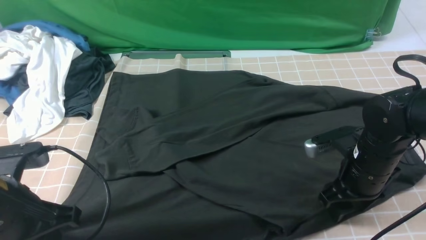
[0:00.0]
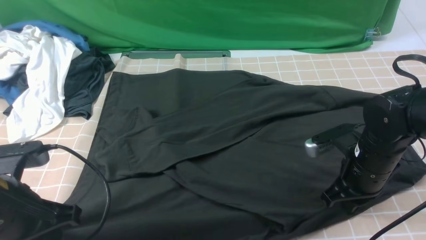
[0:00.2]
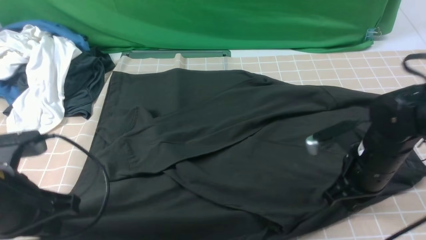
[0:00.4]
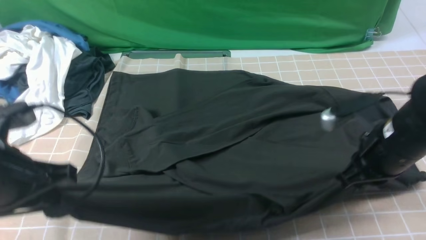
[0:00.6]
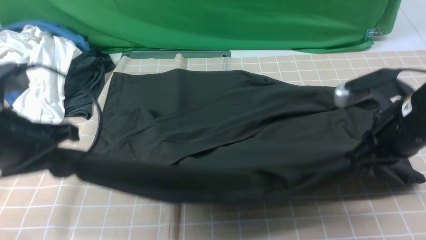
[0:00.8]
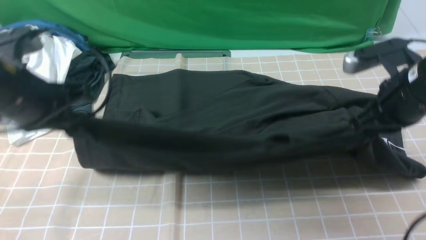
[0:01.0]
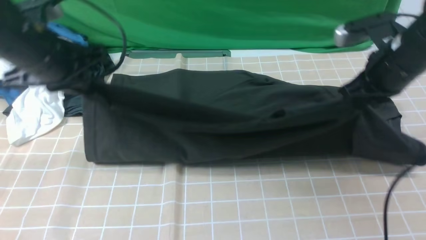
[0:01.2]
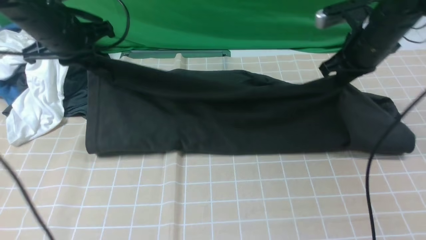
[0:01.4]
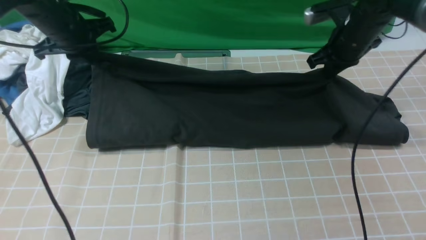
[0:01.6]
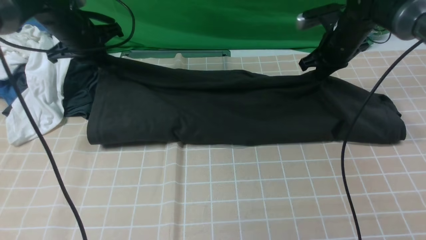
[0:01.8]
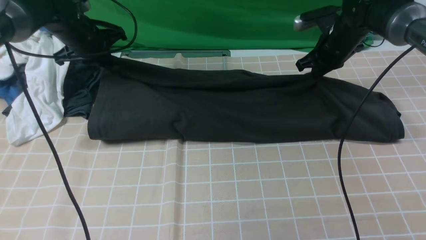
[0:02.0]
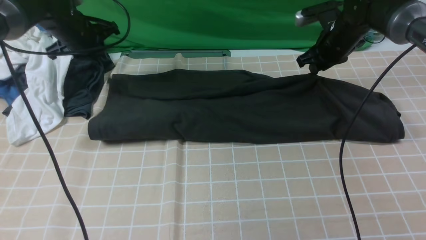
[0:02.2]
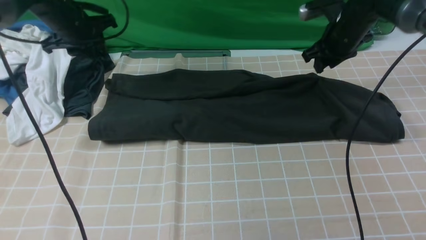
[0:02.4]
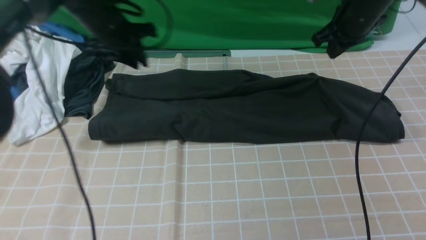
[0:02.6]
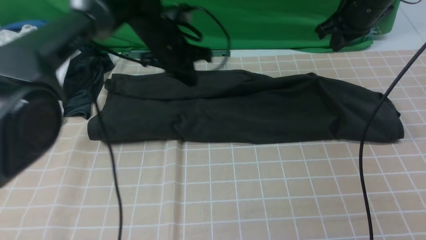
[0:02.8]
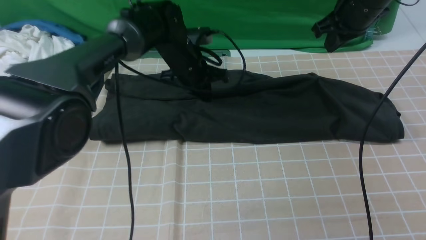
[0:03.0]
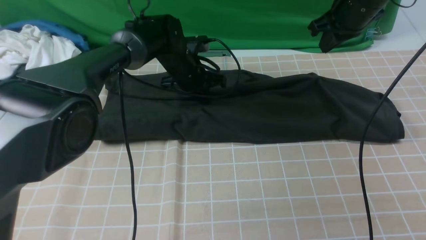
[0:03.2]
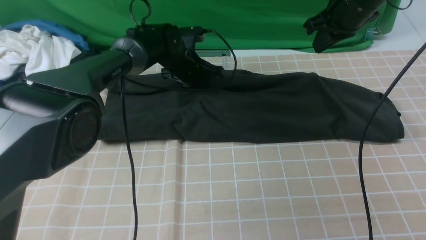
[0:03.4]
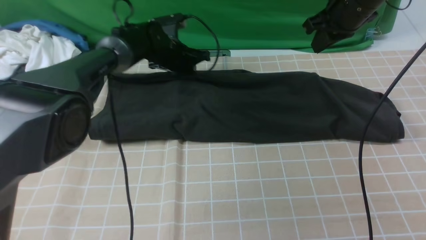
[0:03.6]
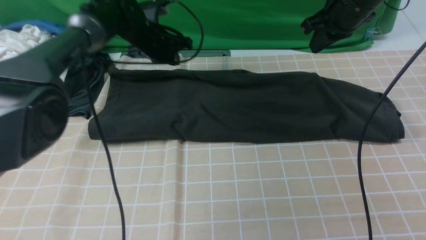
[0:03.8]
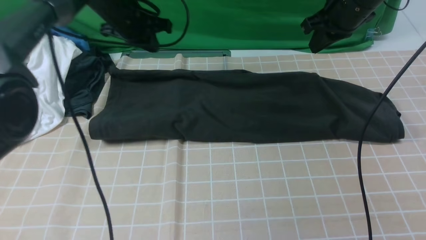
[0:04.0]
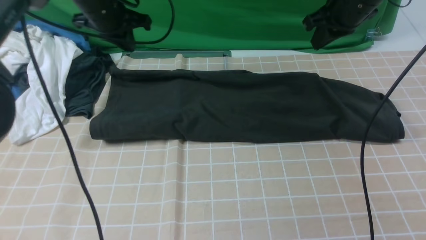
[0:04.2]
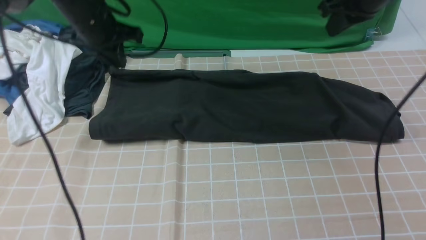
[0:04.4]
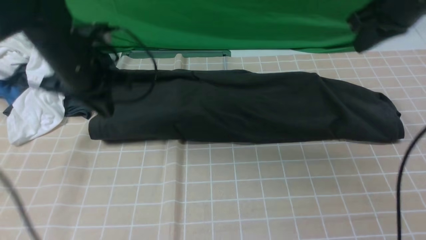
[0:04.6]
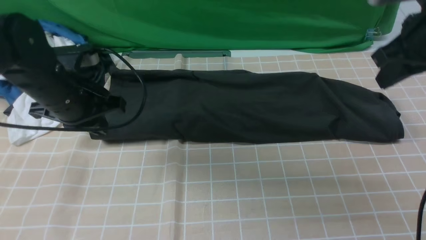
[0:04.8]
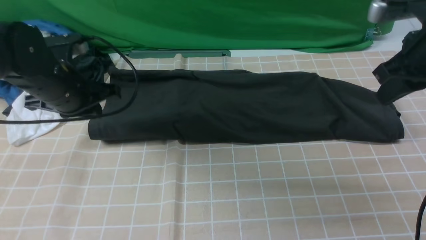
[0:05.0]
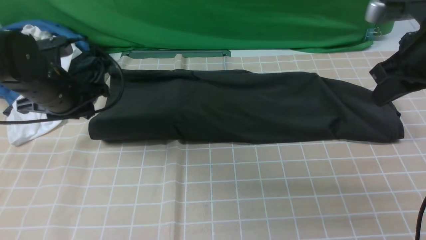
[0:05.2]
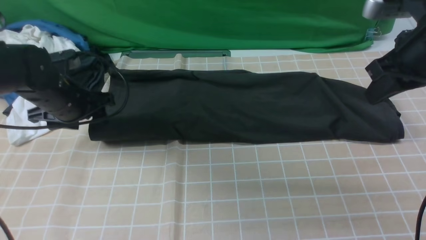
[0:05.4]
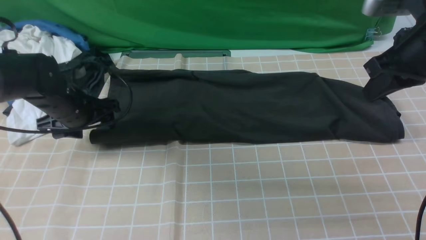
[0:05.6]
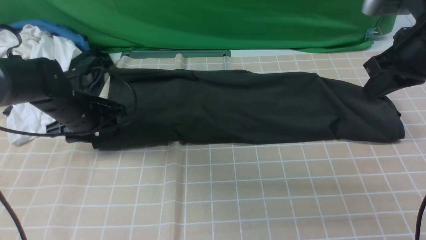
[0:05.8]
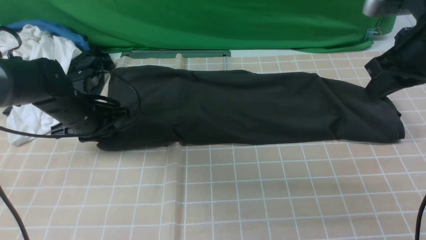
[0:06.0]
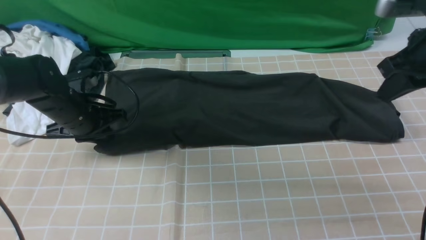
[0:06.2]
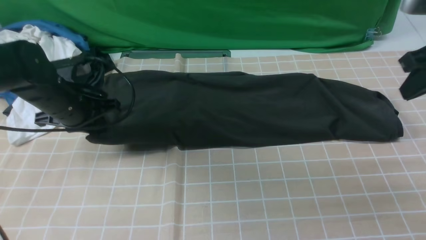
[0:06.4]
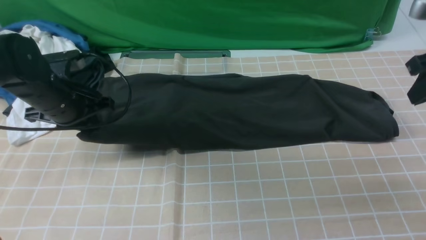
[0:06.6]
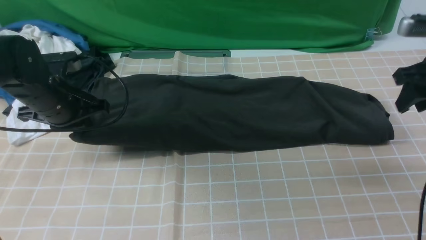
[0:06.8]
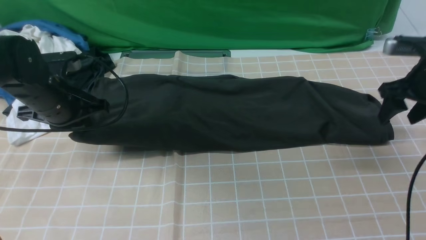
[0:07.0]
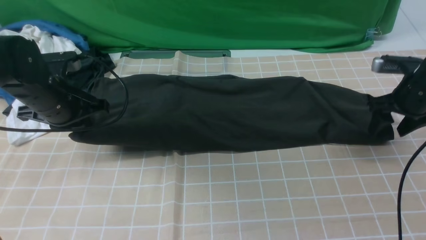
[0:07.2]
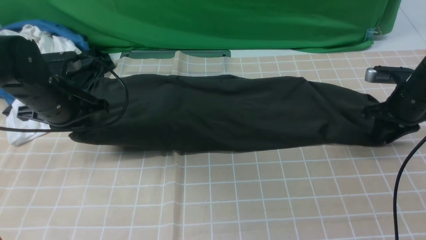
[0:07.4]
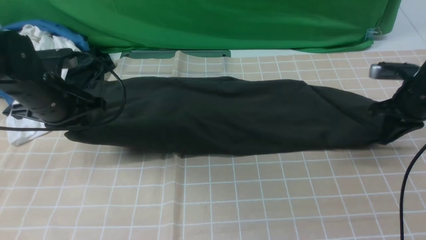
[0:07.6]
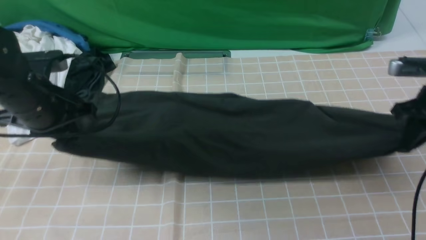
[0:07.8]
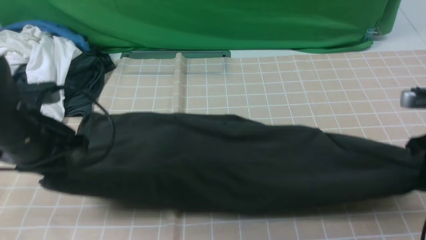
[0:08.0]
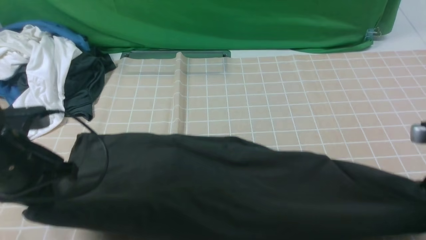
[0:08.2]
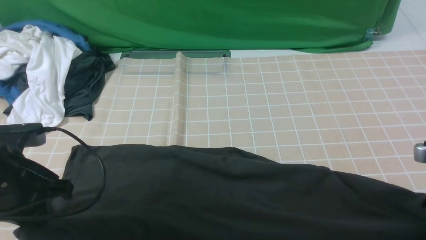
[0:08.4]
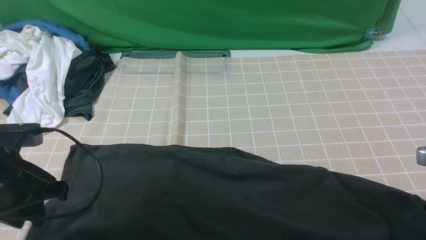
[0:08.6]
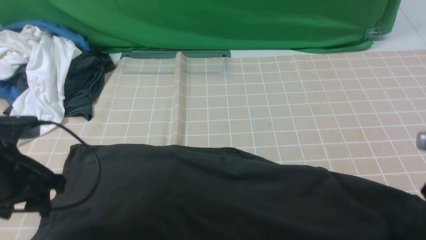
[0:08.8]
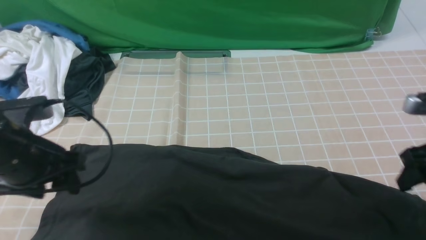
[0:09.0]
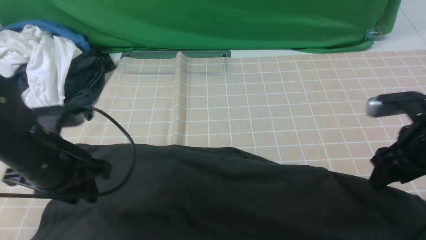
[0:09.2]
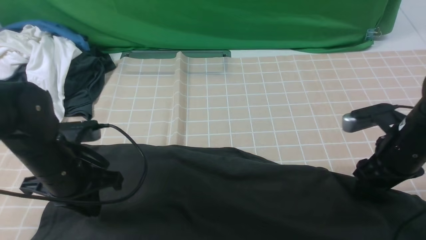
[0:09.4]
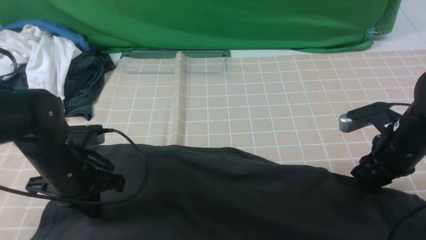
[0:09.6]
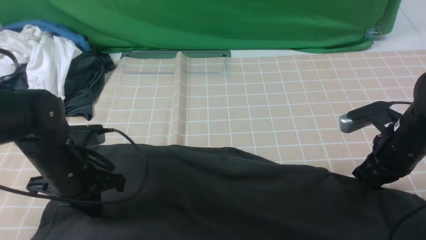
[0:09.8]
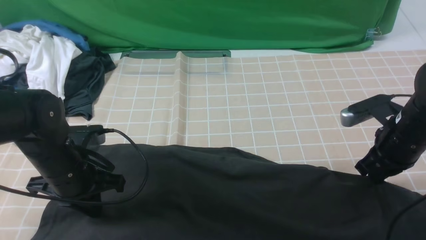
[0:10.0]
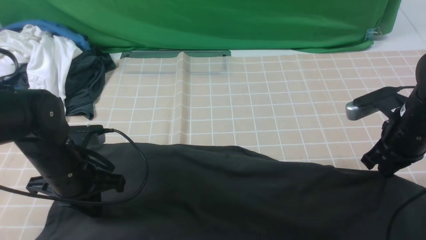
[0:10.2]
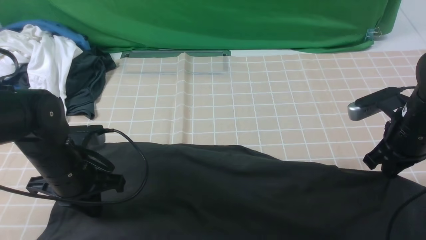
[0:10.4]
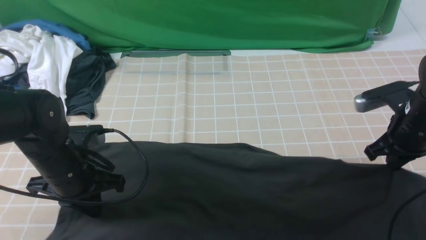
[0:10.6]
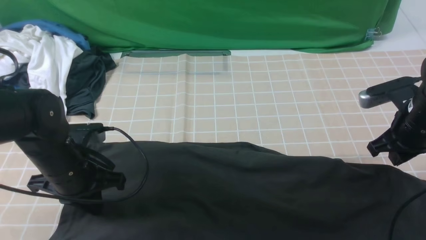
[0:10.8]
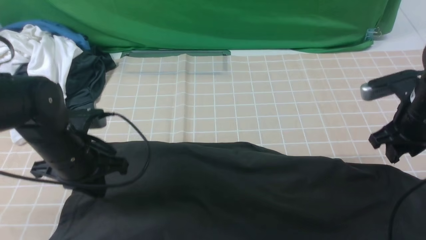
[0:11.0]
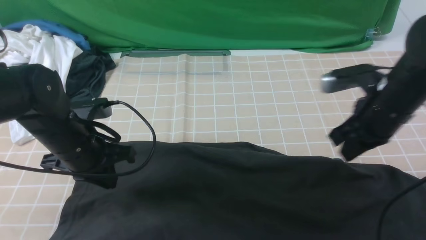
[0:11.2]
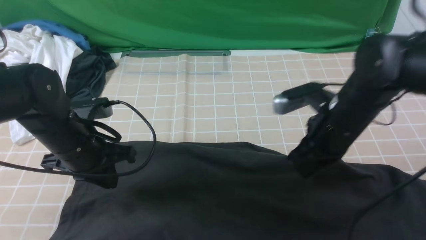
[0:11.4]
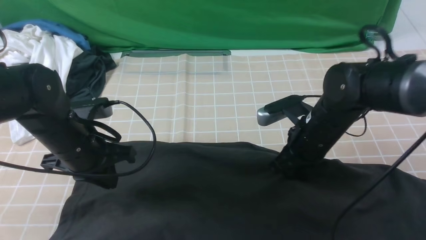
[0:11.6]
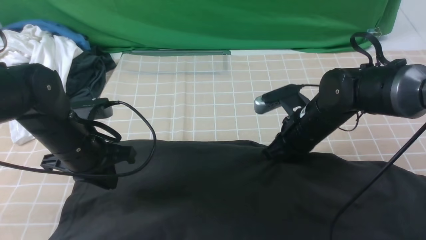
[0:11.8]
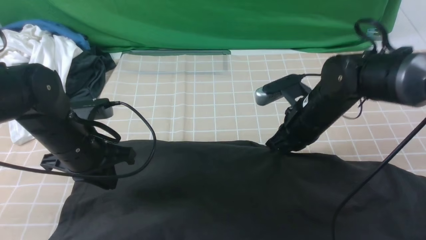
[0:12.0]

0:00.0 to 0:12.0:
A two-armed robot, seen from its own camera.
Step, 0:00.6 to 0:02.4: use both arms to drag the lower edge of the fabric forward and fold it over the upper edge.
0:00.0 to 0:01.6: The right gripper is displaced forward and upward by about 20 cm, and closes. Meanwhile the left gripper is displaced forward by roughly 30 cm.
0:01.6 to 0:03.0: The left gripper is displaced to the right and downward by about 20 cm. Meanwhile the right gripper goes some 5 cm upward, and opens, then closes once more.
0:03.0 to 0:04.4: The right gripper changes place by about 5 cm, while the left gripper goes some 15 cm to the left and upward.
0:04.4 to 0:06.0: The left gripper travels downward and backward by roughly 15 cm, and opens and closes again. Meanwhile the right gripper goes approximately 10 cm backward.
0:06.0 to 0:07.6: The right gripper travels downward, to the right and forward by some 15 cm, and opens, then closes again; the left gripper heads upward, covering some 5 cm.
0:07.6 to 0:09.0: Both grippers travel together backward, about 10 cm. The right gripper opens its fingers. Meanwhile the left gripper opens up.
0:09.0 to 0:10.4: The right gripper shifts some 5 cm forward, and closes its fingers, while the left gripper moves downward, about 5 cm, and closes.
0:10.4 to 0:12.0: The right gripper travels to the left by about 15 cm.

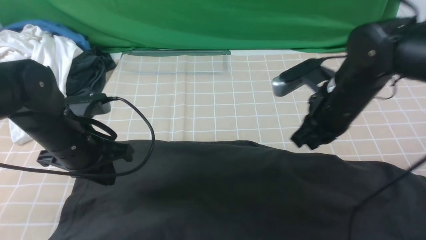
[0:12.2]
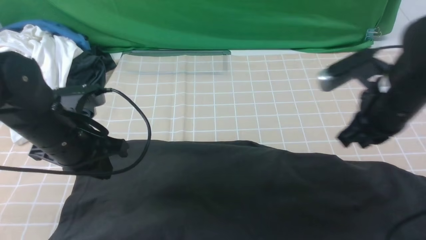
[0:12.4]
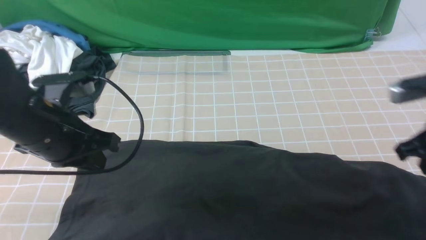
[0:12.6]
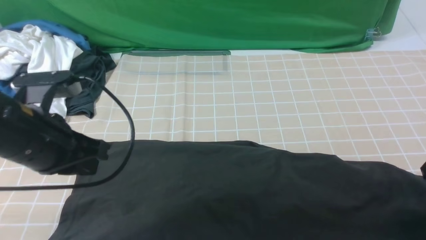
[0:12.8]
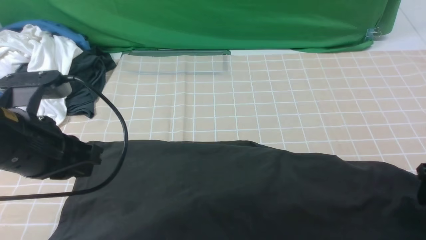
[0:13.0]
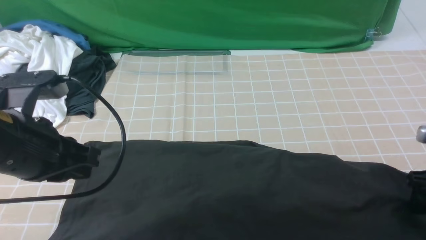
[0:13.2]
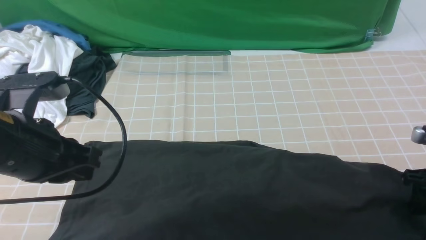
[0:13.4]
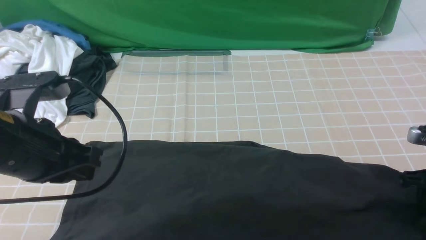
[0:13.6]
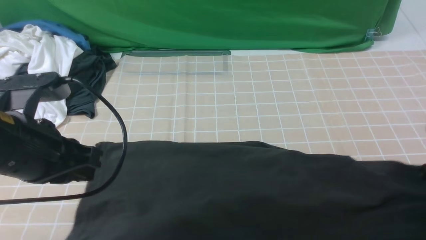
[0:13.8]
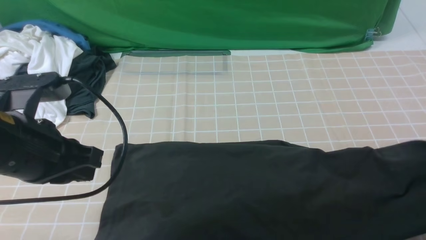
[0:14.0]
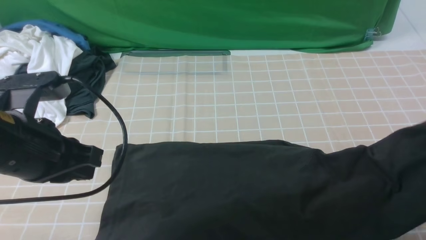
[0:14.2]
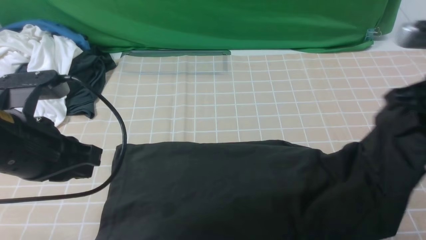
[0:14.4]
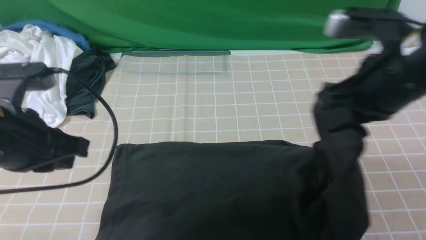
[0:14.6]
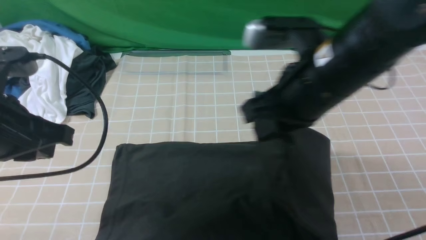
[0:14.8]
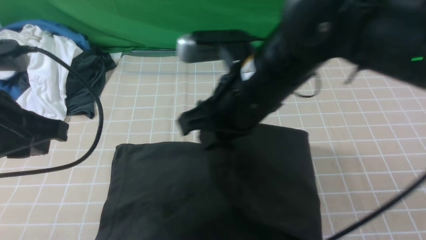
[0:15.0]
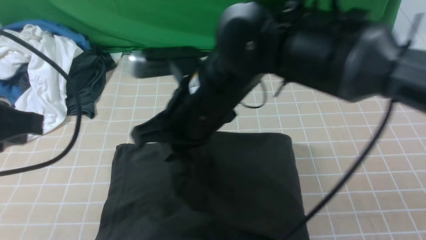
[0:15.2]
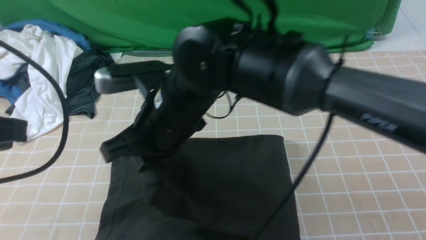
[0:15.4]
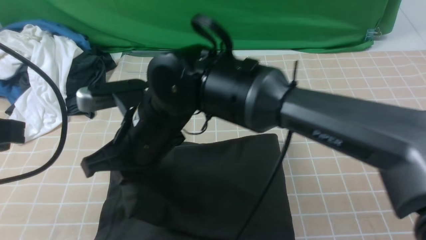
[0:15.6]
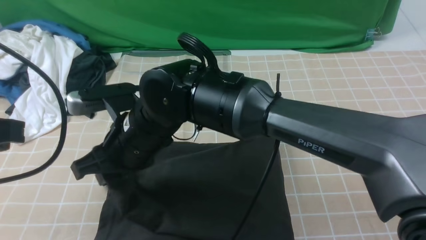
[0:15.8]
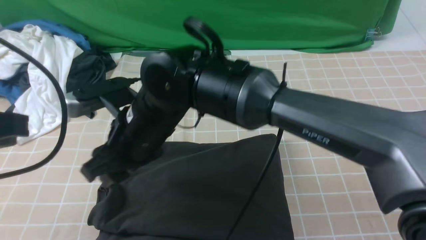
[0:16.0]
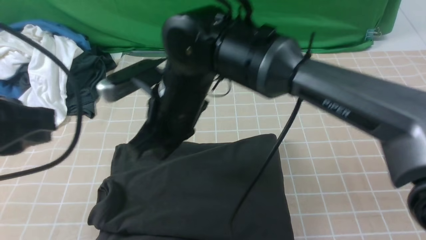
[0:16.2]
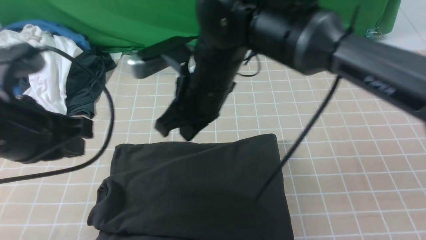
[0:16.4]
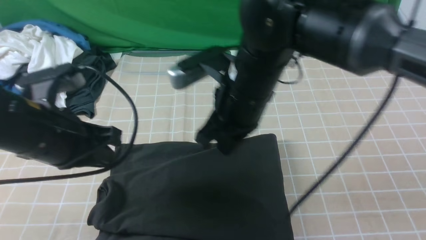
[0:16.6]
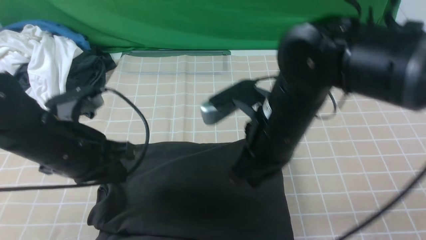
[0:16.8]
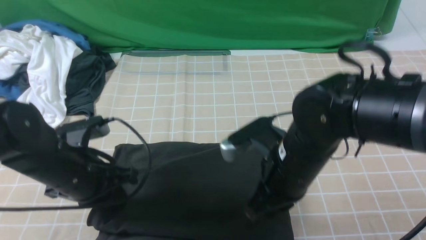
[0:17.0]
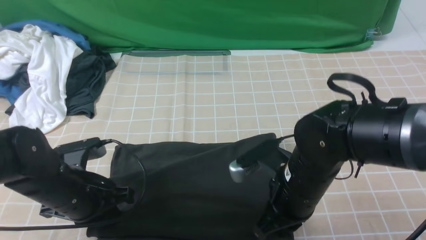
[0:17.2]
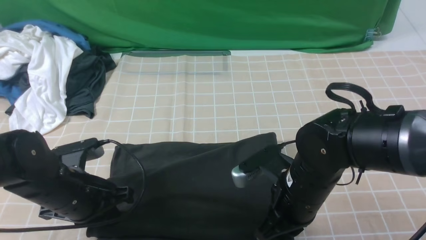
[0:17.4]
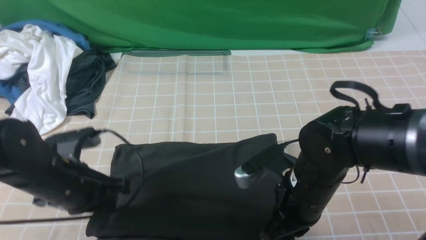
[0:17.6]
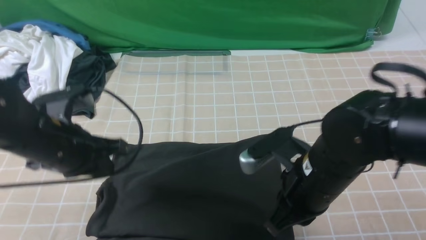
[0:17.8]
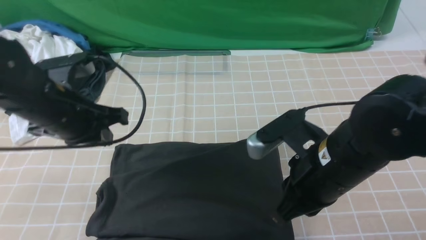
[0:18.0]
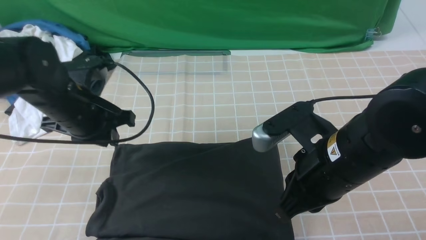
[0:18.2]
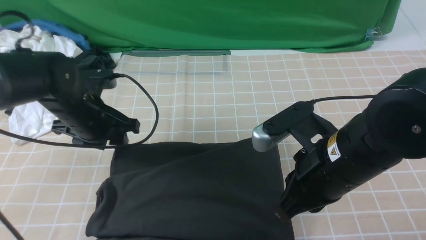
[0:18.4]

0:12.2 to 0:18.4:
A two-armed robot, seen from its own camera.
Step, 0:14.0 to 0:16.2: use the right arm to drag the right edge of the fabric to the left and folds it over the left edge.
0:12.2 to 0:13.8: The left gripper shifts some 10 cm upward and backward. The right gripper shifts roughly 20 cm to the right, and opens, then closes once more.
0:13.8 to 0:15.4: The right gripper goes approximately 40 cm to the left. Meanwhile the left gripper shifts roughly 5 cm upward.
0:15.4 to 0:16.8: The right gripper travels to the right by roughly 15 cm, and opens, then closes again; the left gripper moves downward and forward, roughly 15 cm.
0:16.8 to 0:18.4: The left gripper moves forward, some 10 cm, and opens its fingers. The right gripper travels backward and to the right by some 10 cm, and moves about 10 cm downward and comes back.
